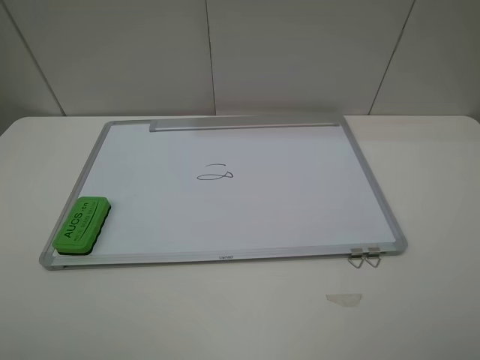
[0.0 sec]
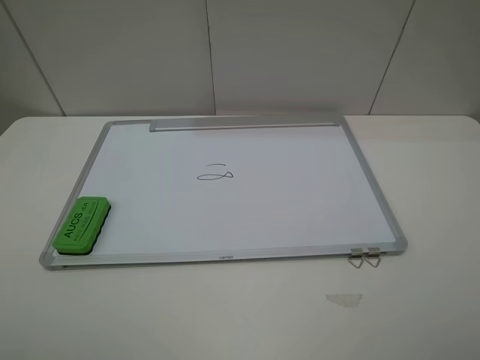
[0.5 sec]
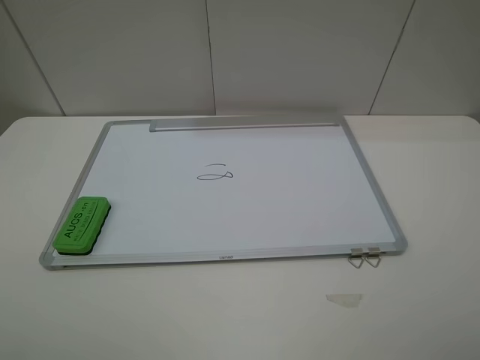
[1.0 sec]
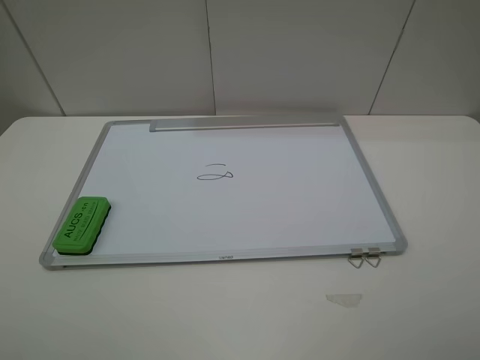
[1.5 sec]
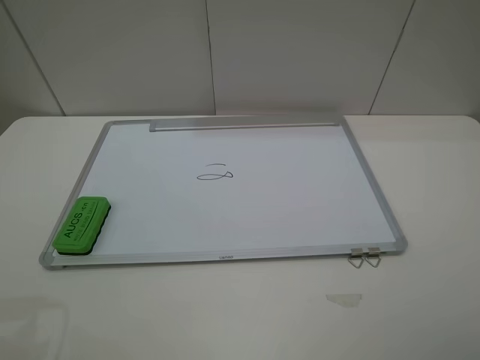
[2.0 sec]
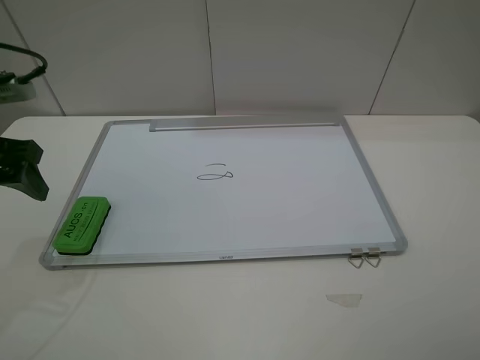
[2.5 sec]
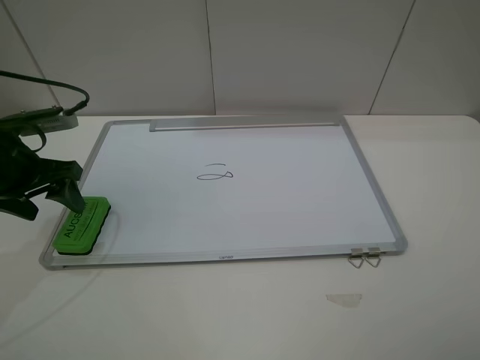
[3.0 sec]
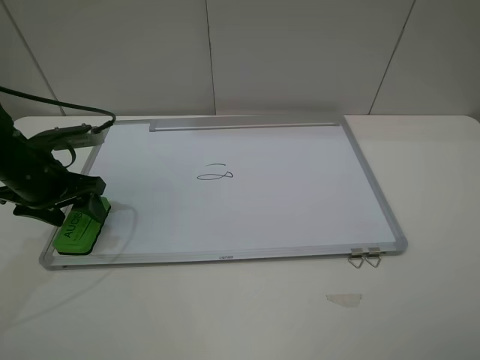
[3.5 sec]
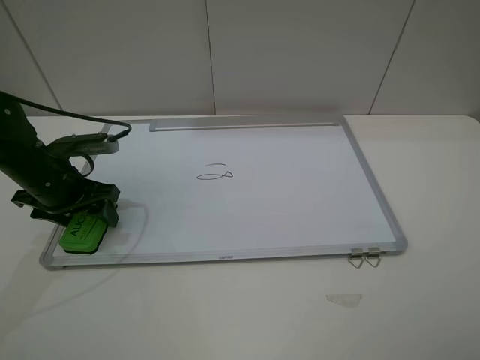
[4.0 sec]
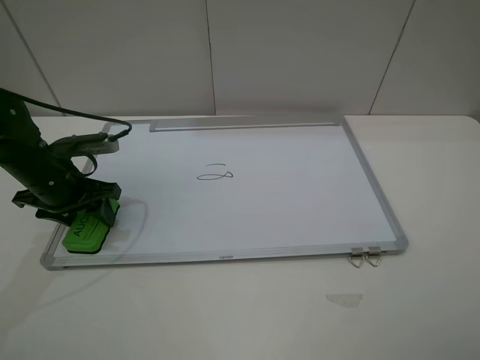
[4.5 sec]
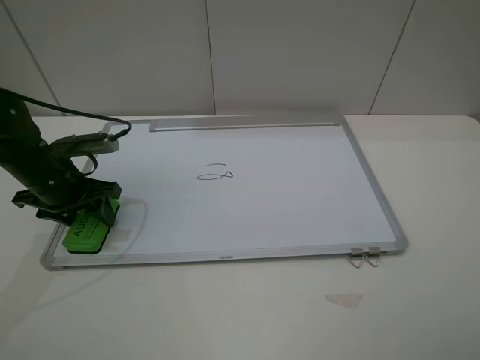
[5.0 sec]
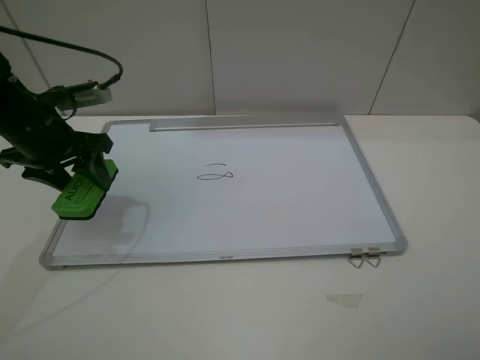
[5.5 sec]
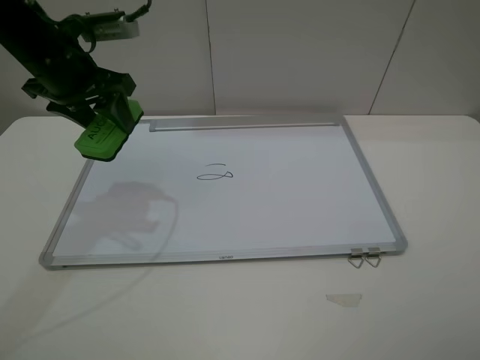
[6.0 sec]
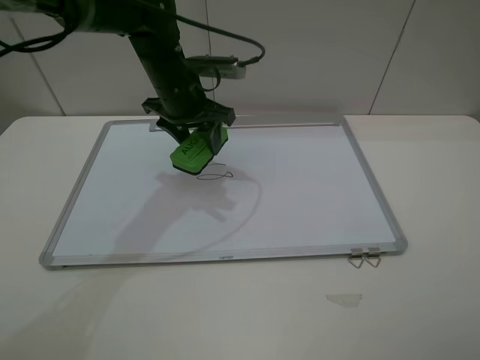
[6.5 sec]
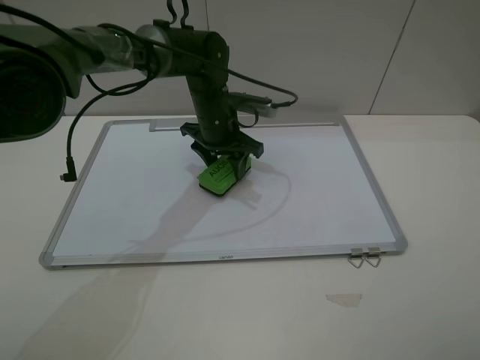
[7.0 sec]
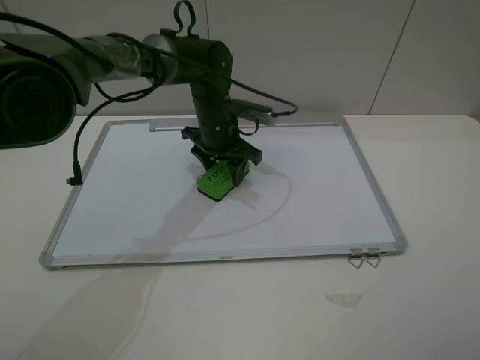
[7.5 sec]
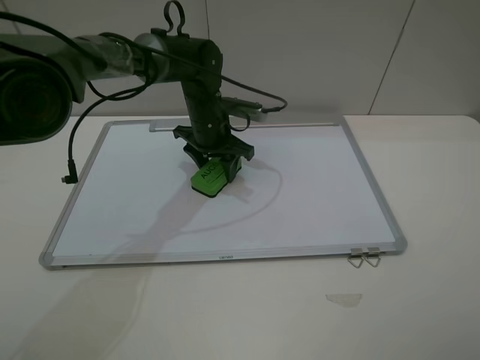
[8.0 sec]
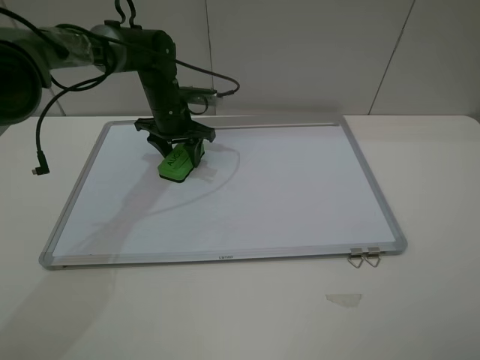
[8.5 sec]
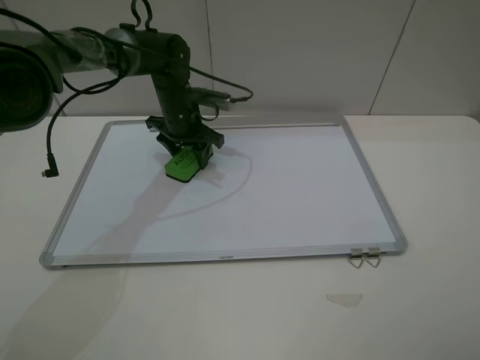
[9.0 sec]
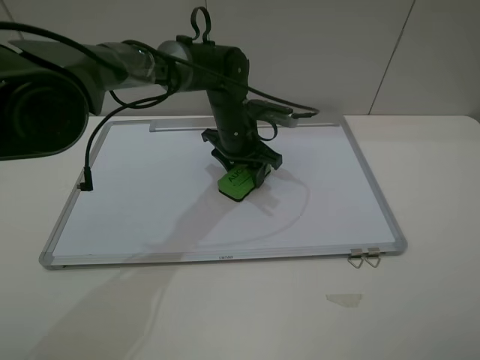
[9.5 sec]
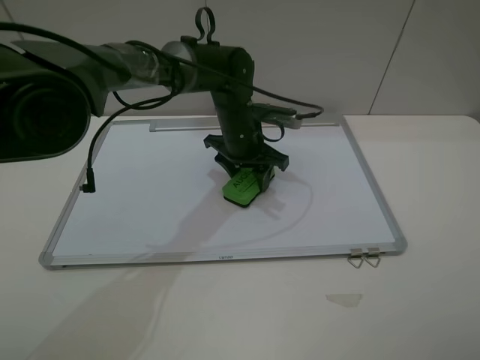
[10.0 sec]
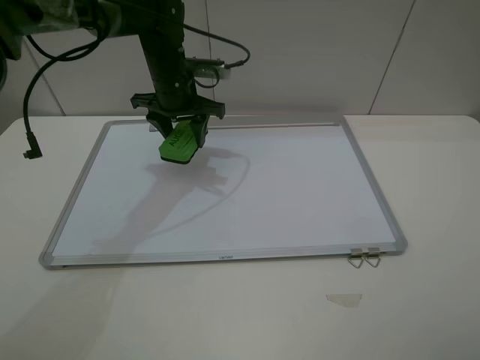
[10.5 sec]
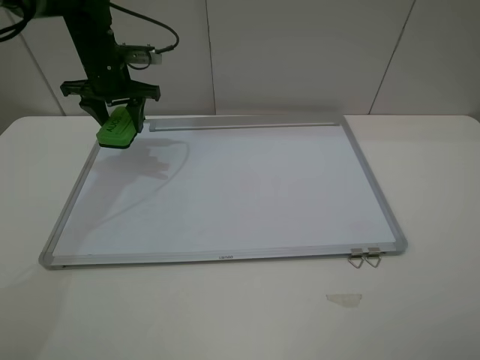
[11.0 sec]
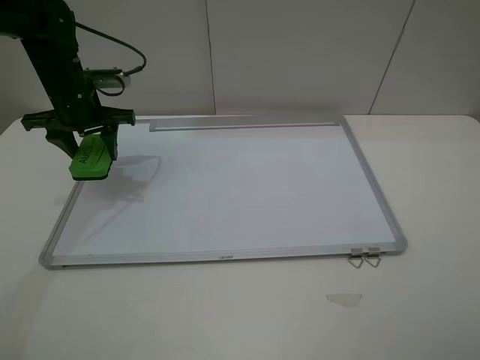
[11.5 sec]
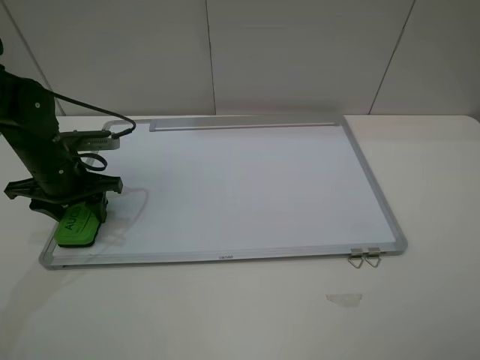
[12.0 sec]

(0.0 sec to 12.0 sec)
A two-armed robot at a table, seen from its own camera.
Step, 0.0 sec - 4.5 sec: Grasp the eraser with the left gripper.
Step, 5.0 sec - 10.0 sec: Grasp the eraser and wipe the blackboard with the left gripper.
2.0 sec - 4.0 sec: The left gripper shifts approximately 25 cm downward and forward.
4.0 sec - 6.0 sec: The left gripper shifts about 15 cm upward, to the right and forward, and closes up.
6.0 sec - 8.0 sec: The left gripper moves downward, to the right and forward, roughly 25 cm.
8.0 sec - 10.0 sec: The left gripper moves to the right, some 5 cm.
10.0 sec - 12.0 sec: The left gripper moves to the left, approximately 25 cm.

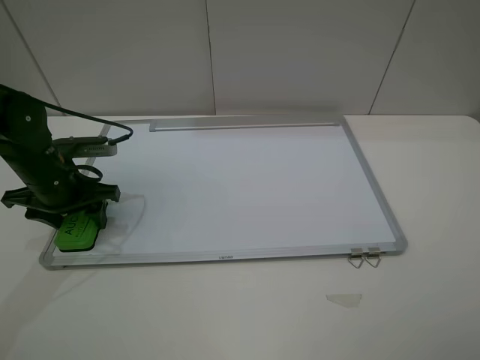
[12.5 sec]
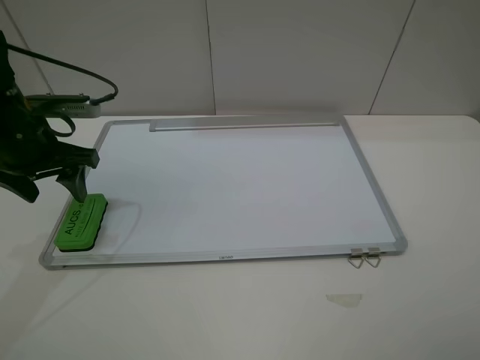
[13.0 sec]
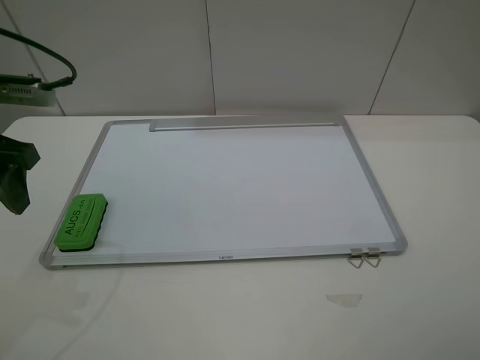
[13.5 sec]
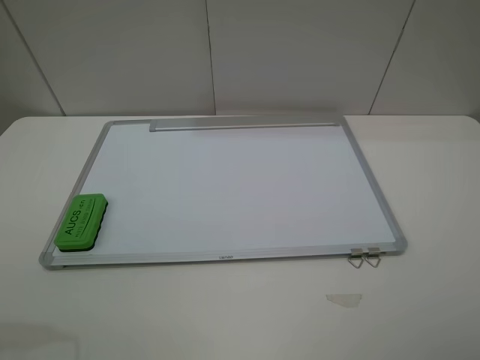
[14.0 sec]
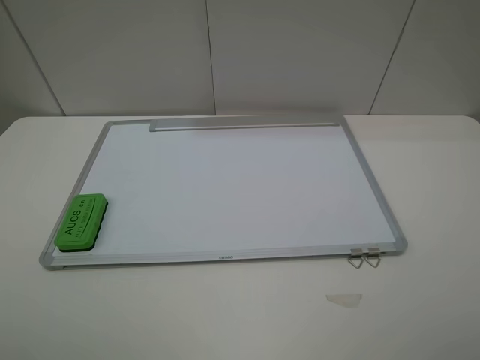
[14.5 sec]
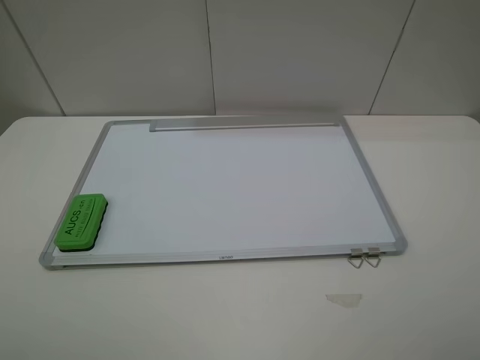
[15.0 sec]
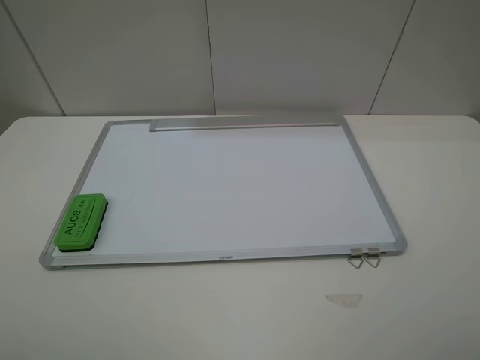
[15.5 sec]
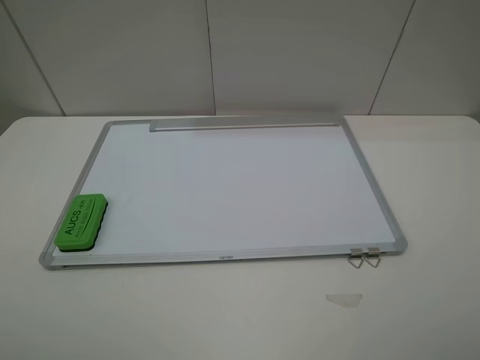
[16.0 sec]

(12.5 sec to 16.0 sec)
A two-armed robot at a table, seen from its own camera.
12.5 sec - 14.5 sec: The left gripper is displaced backward and upward by approximately 30 cm.
